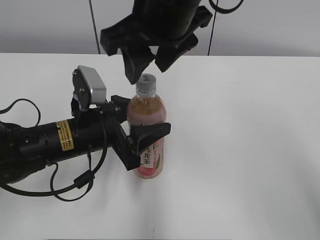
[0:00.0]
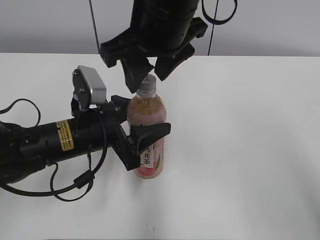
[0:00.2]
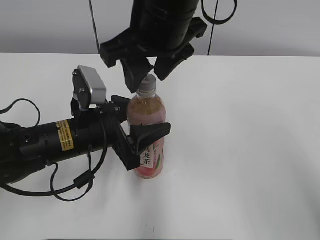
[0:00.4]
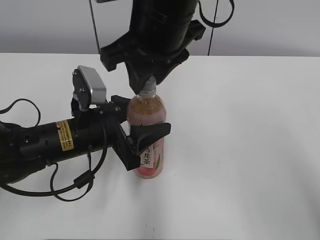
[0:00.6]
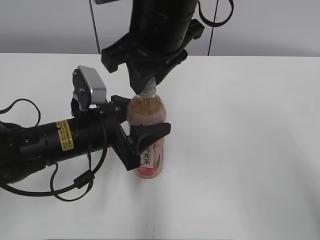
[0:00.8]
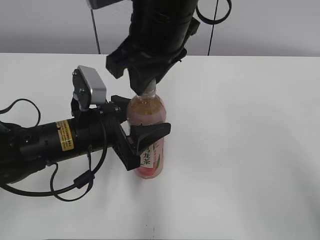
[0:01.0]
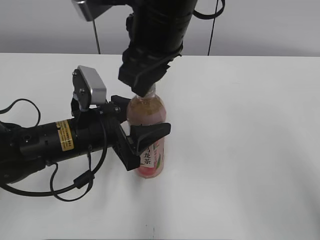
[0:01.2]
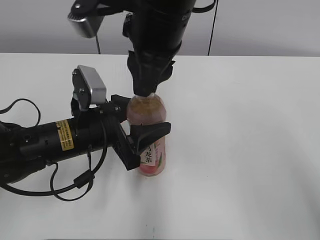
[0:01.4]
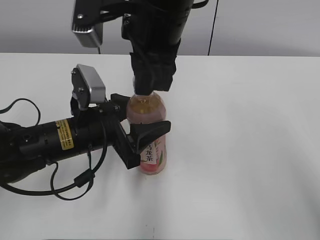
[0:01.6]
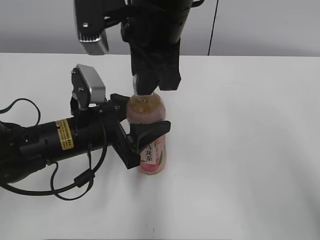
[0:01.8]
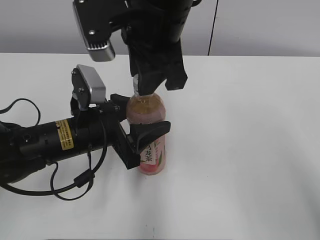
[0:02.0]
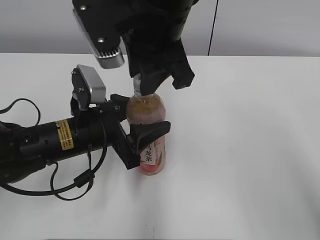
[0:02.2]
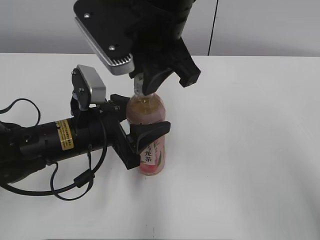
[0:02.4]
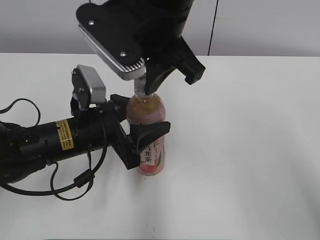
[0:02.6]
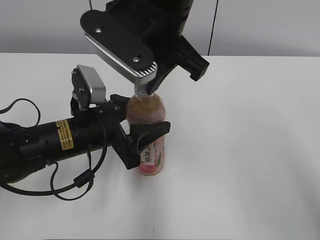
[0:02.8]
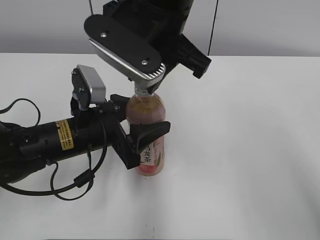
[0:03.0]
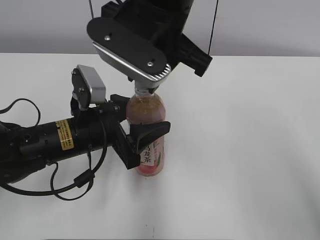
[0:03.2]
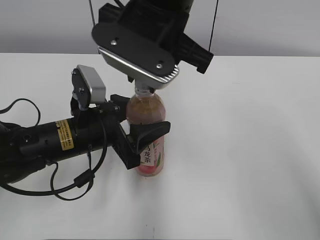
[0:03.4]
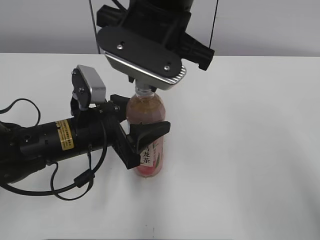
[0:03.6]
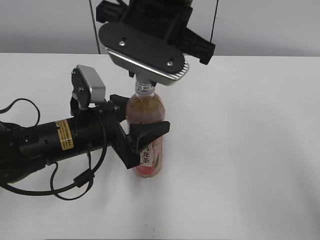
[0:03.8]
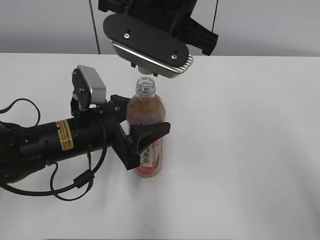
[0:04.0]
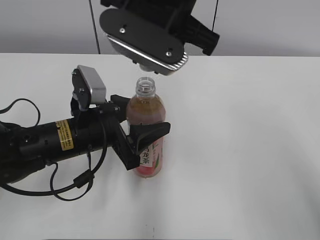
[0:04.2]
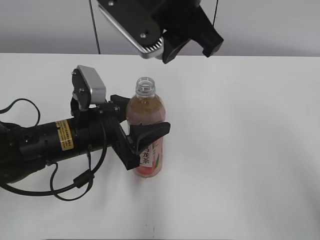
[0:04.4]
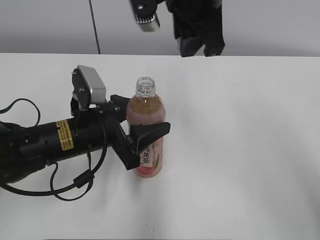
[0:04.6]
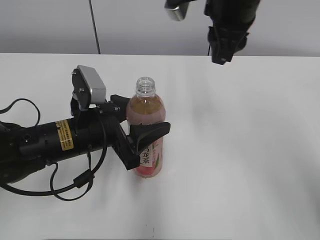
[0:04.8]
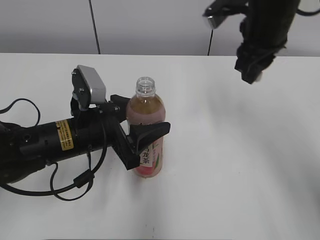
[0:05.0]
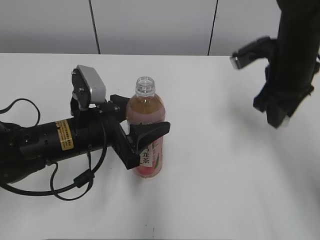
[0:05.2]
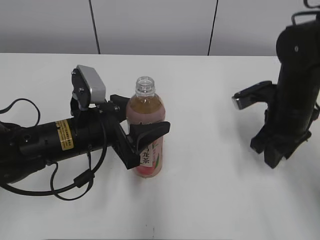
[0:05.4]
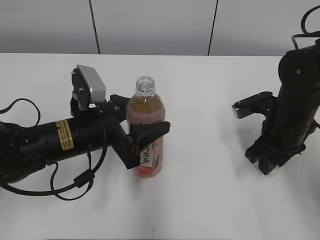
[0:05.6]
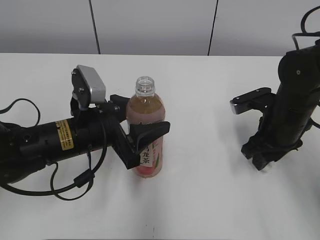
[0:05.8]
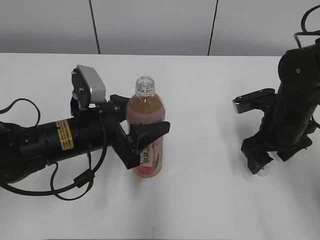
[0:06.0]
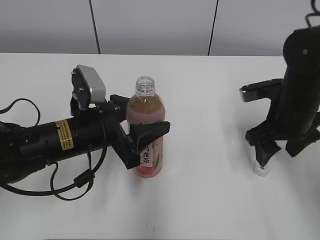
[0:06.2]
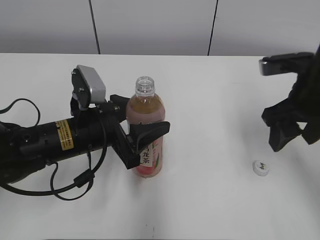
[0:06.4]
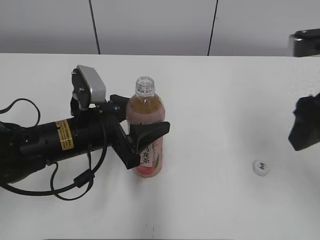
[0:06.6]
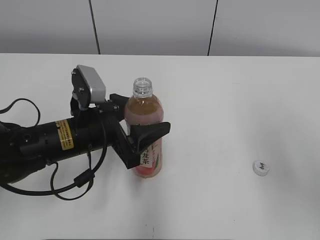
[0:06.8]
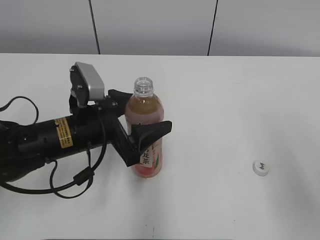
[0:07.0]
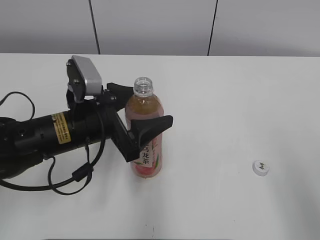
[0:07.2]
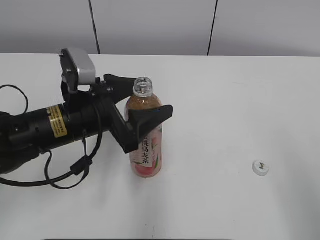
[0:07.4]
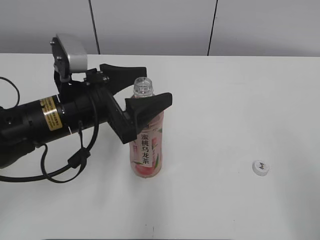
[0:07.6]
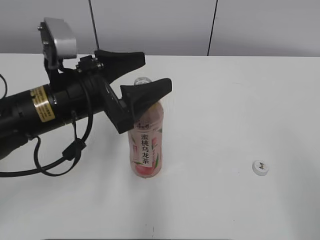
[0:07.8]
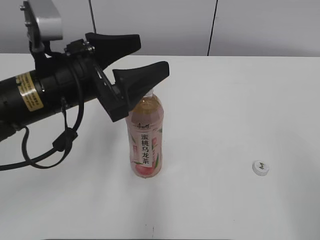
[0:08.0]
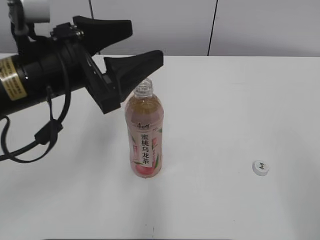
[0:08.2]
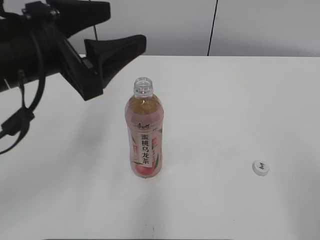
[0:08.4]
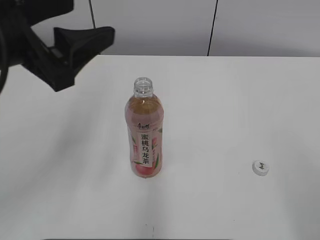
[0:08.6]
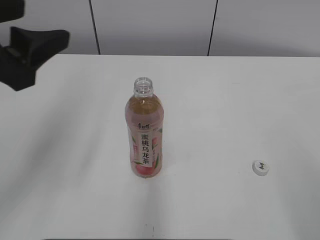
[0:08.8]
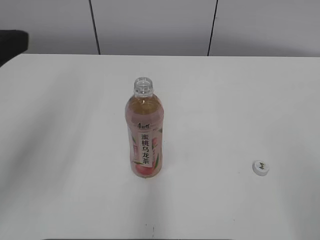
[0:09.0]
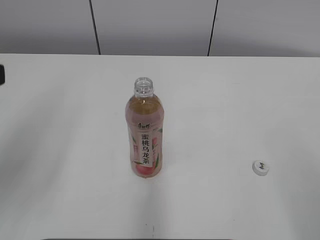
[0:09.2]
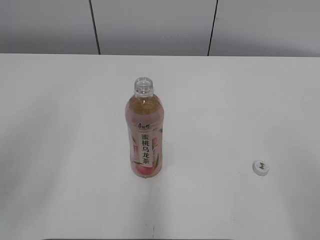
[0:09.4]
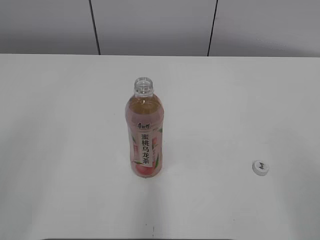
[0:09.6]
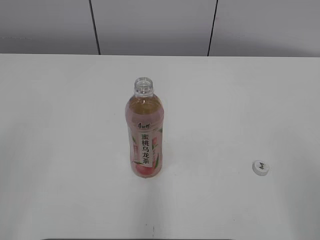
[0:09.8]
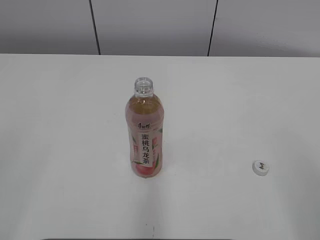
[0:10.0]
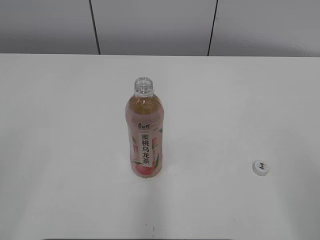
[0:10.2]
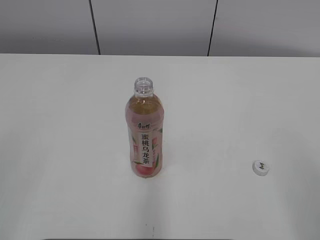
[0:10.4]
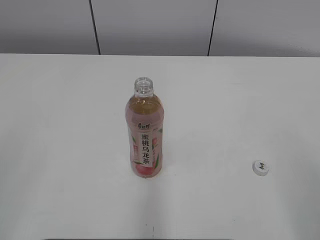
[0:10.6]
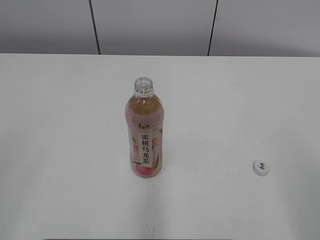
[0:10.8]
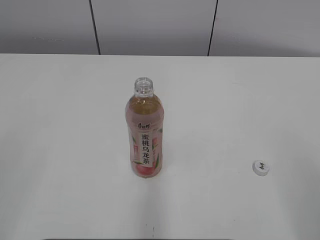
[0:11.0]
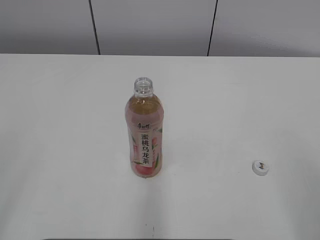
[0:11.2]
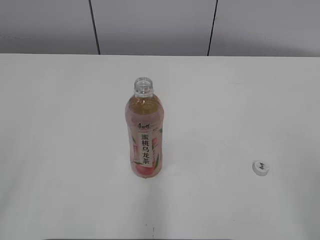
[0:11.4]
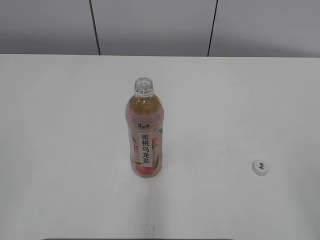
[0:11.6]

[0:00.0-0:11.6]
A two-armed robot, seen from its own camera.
Step, 0:04.0 to 0:05.8: Place the bottle cap on the right.
0:00.0 to 0:01.4: The right gripper closes its fingers.
0:04.4 to 0:05.8: The right gripper is displaced downward and to the right by about 30 cm.
0:05.8 to 0:07.2: The right gripper moves backward and upward, some 25 cm, and opens.
0:07.2 to 0:08.8: The left gripper travels upward and to the left by about 20 cm. Meanwhile the right gripper goes roughly 5 cm backward.
0:08.8 to 0:10.2: The left gripper heads backward and to the left, covering some 20 cm.

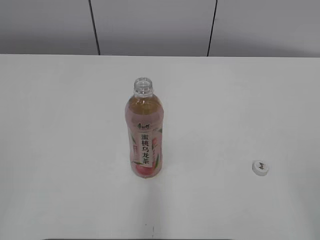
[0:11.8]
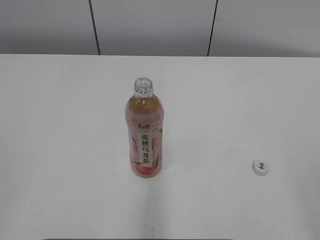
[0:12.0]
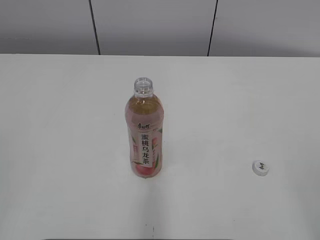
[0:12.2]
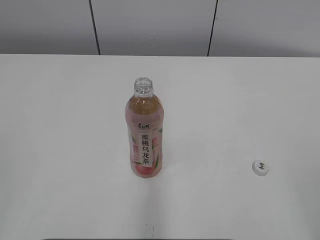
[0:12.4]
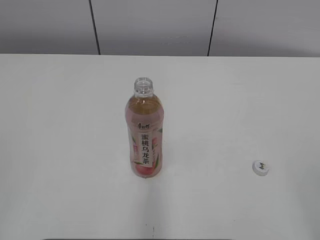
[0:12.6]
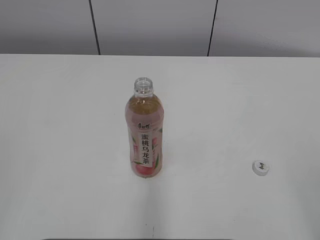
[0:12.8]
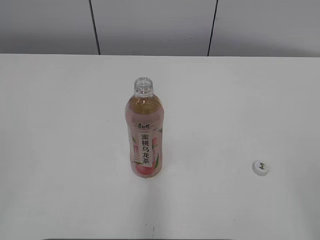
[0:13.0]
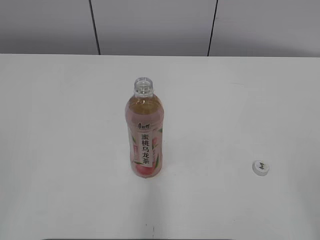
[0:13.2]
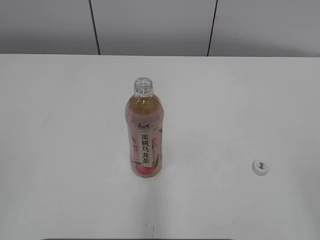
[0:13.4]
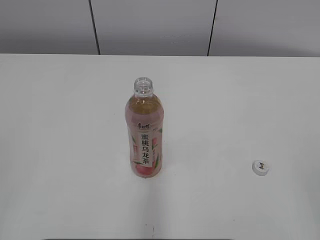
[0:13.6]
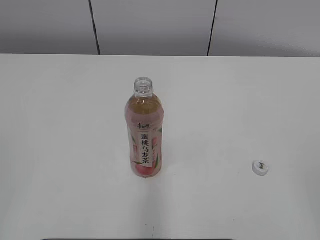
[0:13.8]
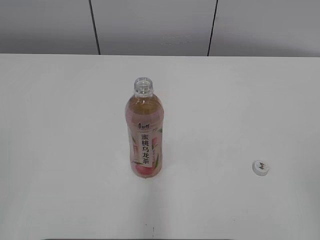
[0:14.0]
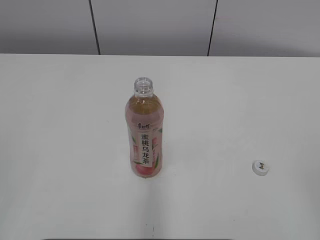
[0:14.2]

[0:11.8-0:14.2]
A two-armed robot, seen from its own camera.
0:11.8 to 0:13.0: The two grippers keep their place.
